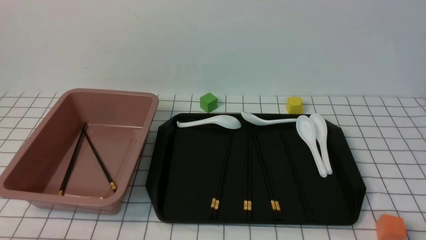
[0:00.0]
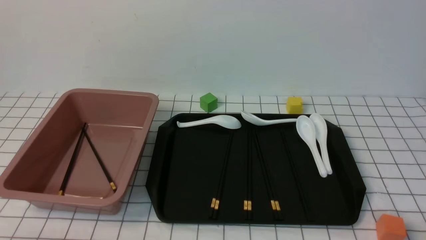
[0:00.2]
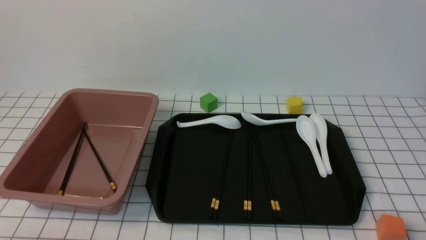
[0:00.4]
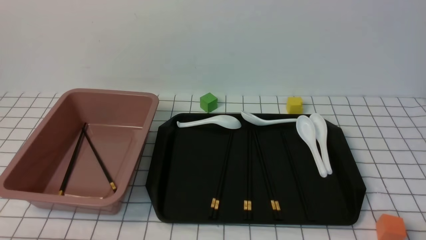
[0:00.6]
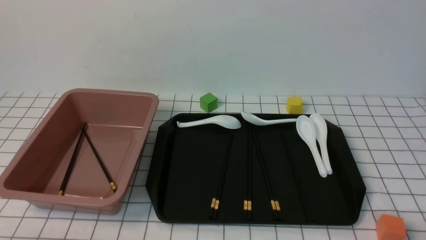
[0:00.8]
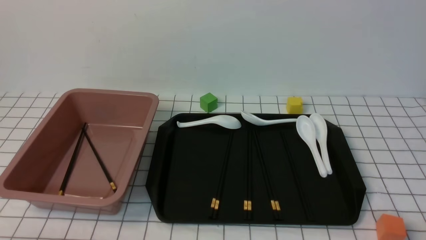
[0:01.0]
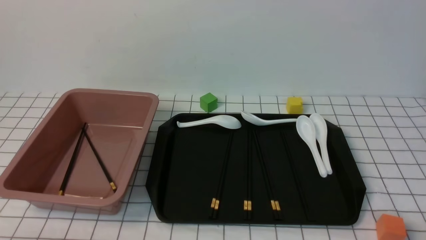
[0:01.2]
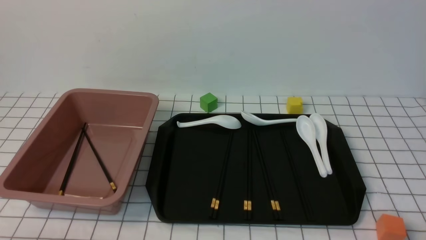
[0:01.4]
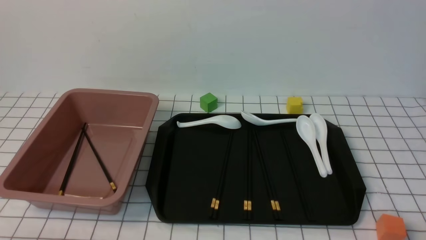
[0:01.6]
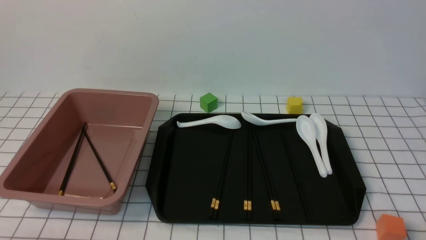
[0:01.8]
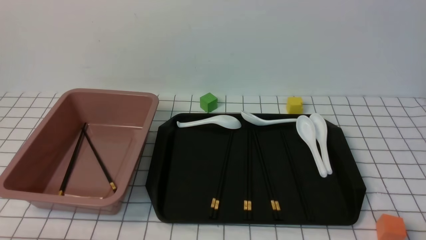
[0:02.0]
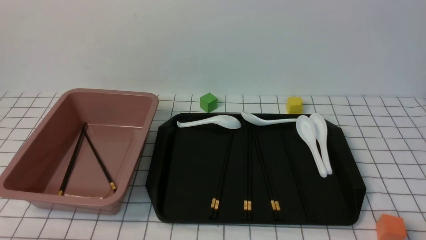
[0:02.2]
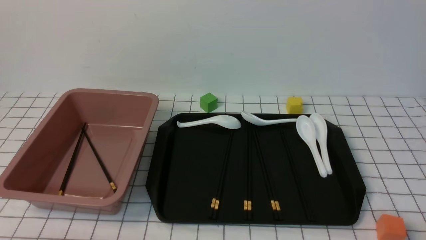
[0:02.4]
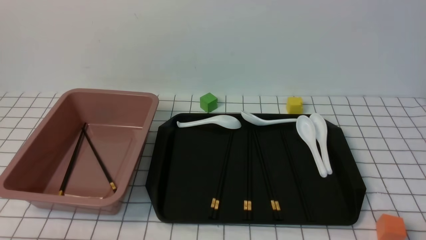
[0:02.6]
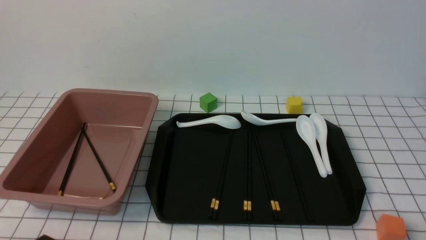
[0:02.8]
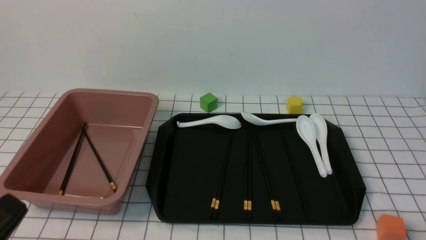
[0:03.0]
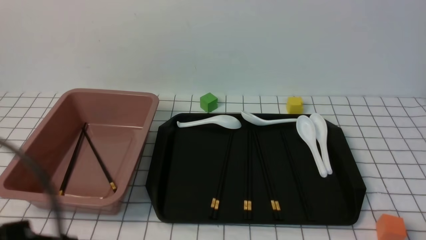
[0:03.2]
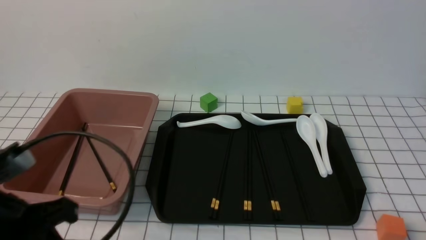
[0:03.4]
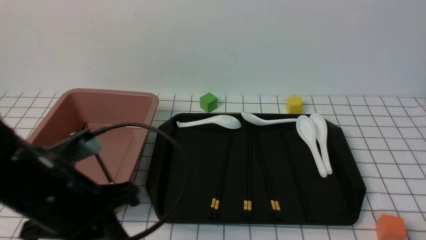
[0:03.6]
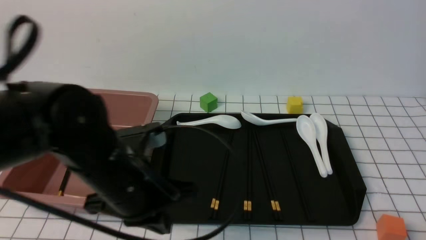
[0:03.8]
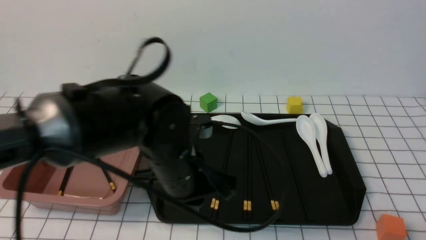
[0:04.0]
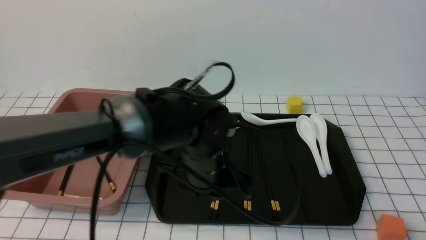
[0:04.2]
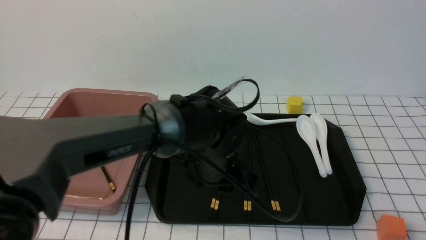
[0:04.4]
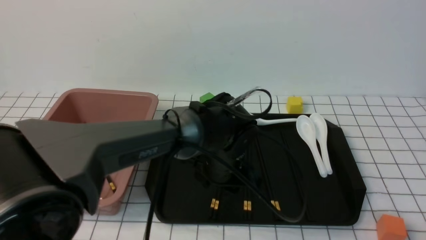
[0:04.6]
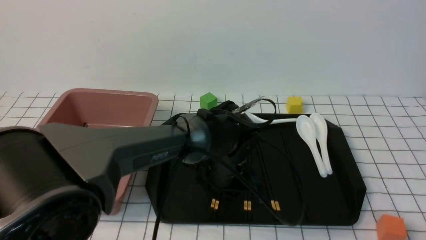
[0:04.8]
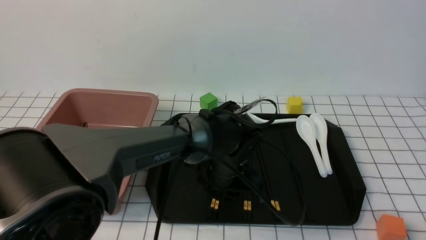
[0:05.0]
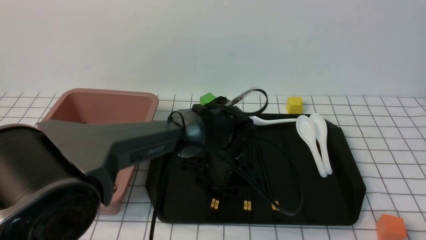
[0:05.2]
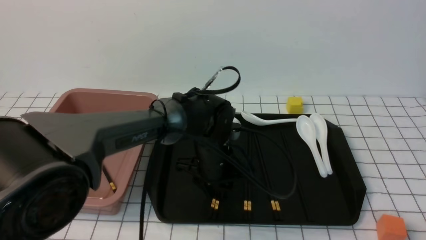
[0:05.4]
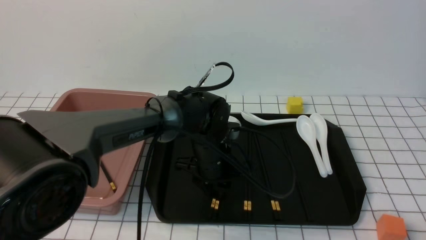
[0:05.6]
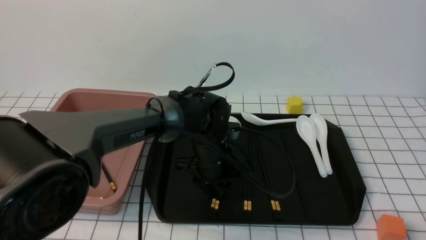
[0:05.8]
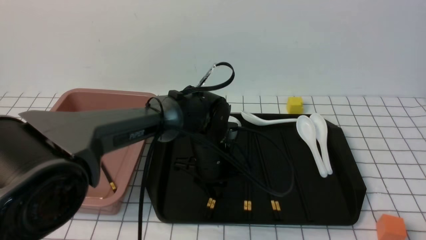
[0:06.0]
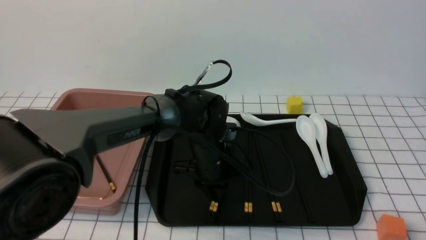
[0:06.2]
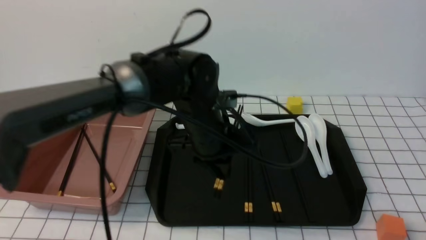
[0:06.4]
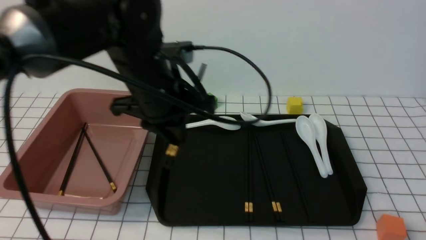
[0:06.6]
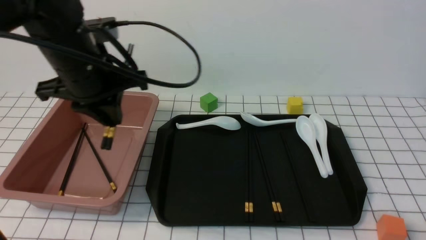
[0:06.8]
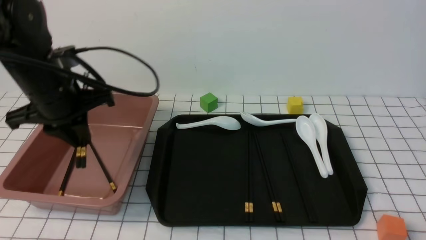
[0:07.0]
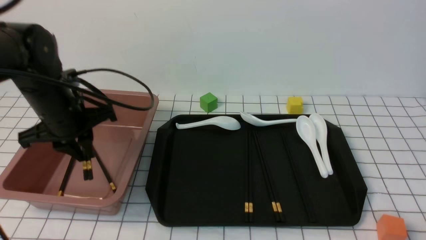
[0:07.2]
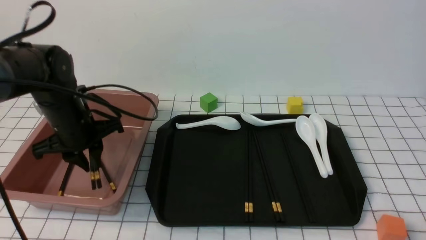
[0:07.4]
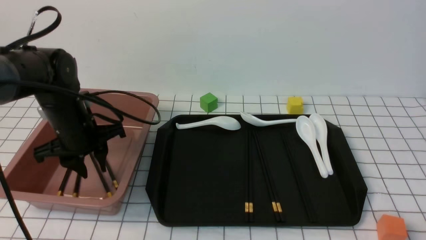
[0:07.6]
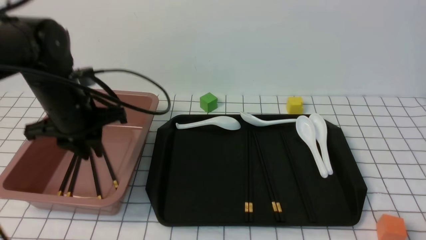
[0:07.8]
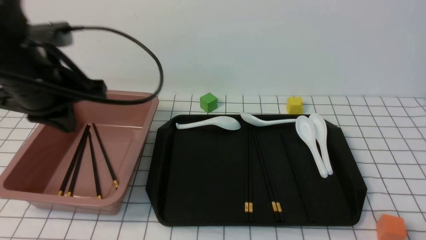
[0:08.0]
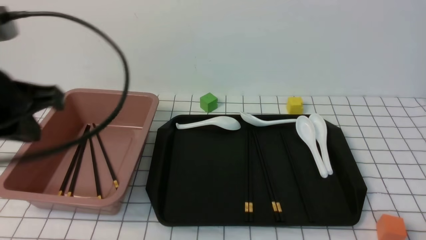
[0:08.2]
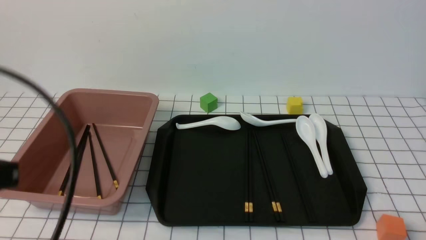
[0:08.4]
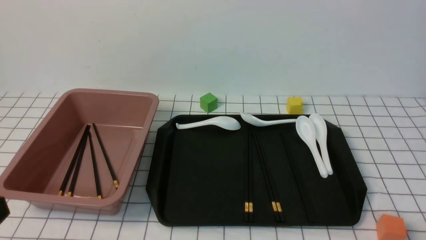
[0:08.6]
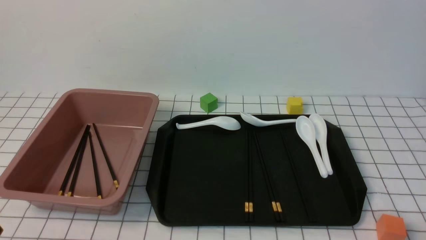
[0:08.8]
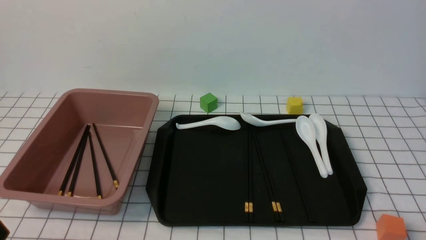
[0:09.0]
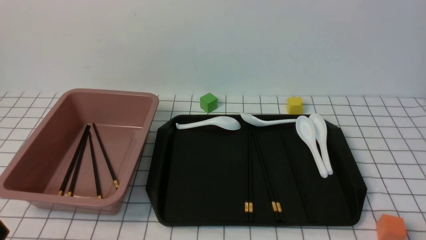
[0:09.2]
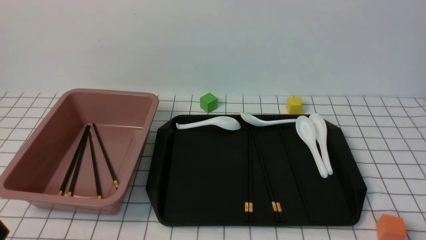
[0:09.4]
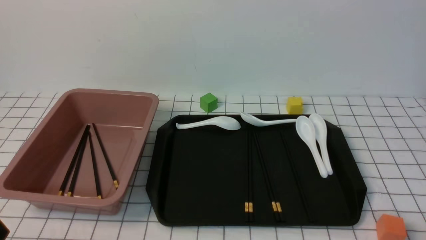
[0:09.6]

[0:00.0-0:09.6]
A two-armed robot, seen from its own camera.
Step, 0:00.0 to 0:06.2: use the left arm to grab a pair of chopsticks.
Step, 0:06.4 to 0:07.8: use the left arm to put the chopsticks into the lunch box.
0:00.0 to 0:01.6: The two grippers keep their place.
0:01.6 to 0:03.2: The left gripper heads upward, covering approximately 15 cm.
0:03.2 to 0:04.8: The left gripper goes roughly 35 cm forward, to the right and downward, and opens its fingers.
0:04.8 to 0:06.4: The left gripper shifts some 10 cm upward and to the left, and closes up.
0:06.4 to 0:08.0: The left gripper goes approximately 20 cm to the left and upward.
0:08.0 to 0:09.6: The left gripper shifts some 25 cm backward and downward.

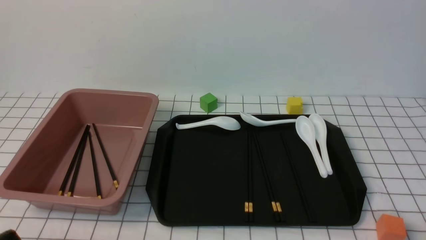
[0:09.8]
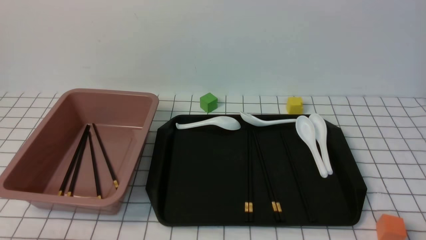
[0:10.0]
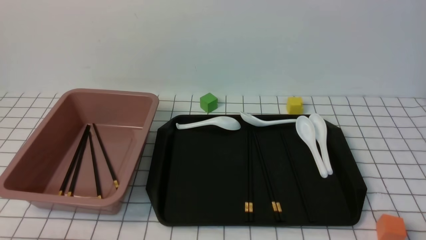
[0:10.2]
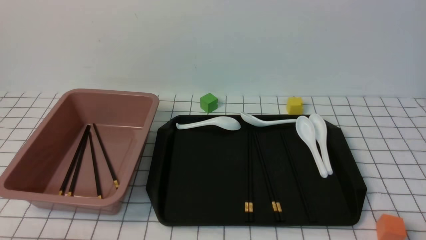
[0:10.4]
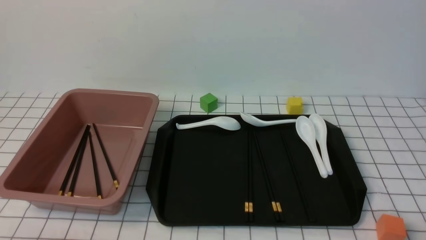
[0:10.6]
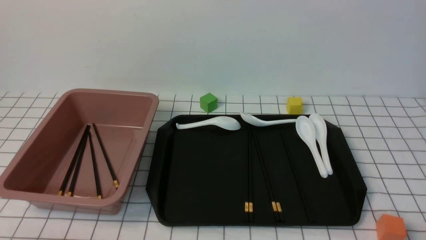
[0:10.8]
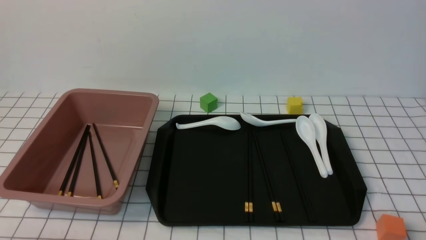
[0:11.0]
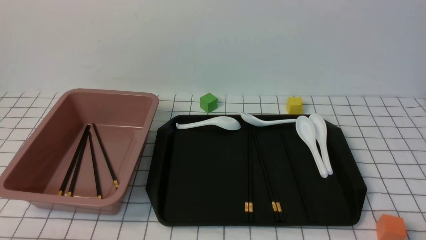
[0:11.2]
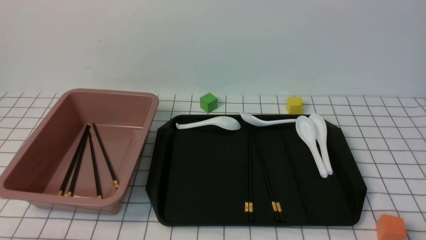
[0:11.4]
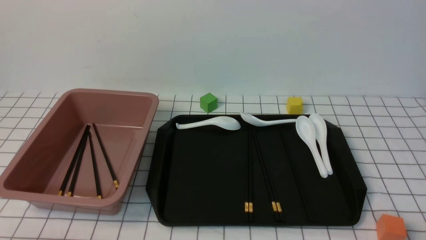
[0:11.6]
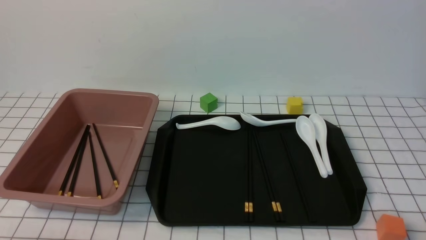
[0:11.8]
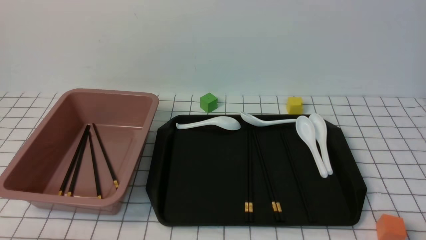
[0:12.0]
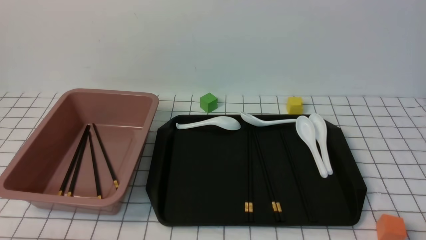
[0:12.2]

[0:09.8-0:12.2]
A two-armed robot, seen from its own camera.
0:11.0 to 0:12.2: Both grippers stay put.
